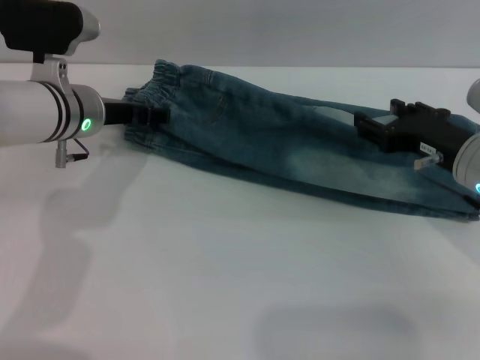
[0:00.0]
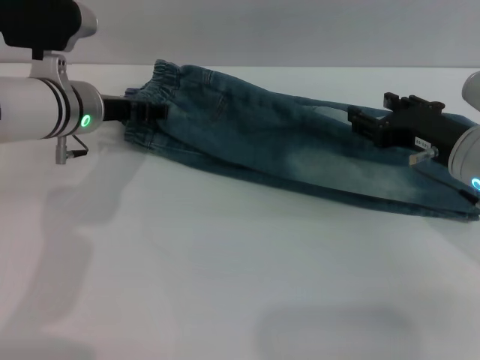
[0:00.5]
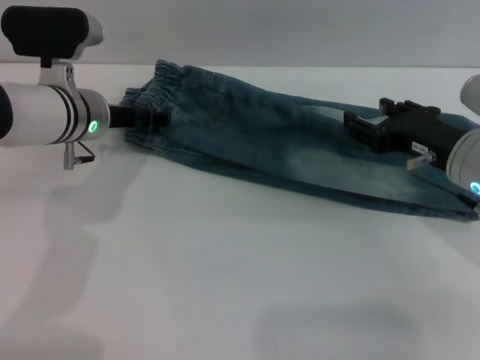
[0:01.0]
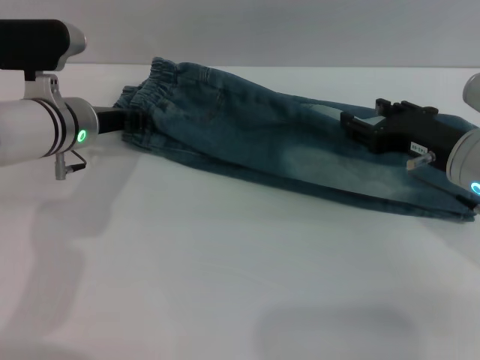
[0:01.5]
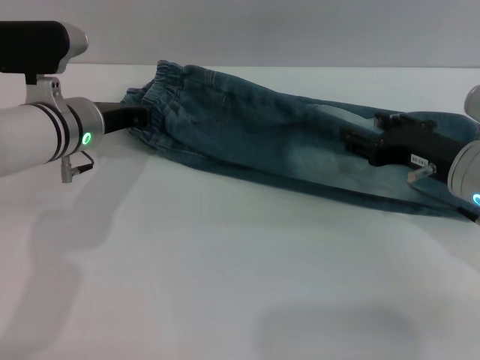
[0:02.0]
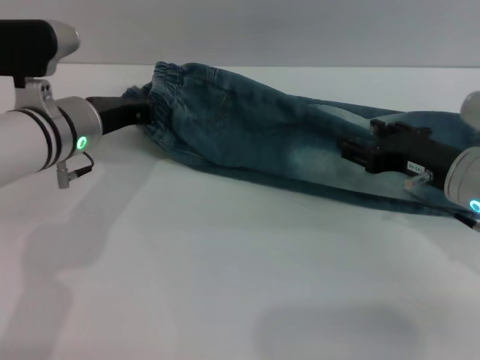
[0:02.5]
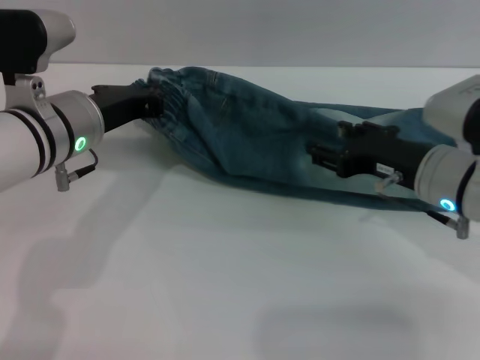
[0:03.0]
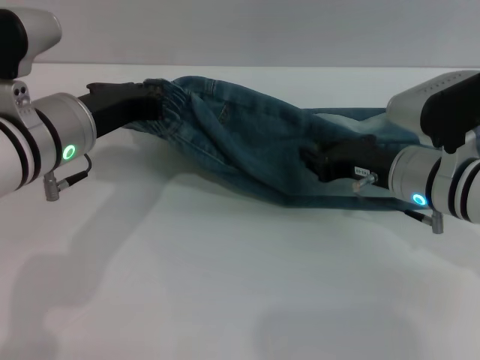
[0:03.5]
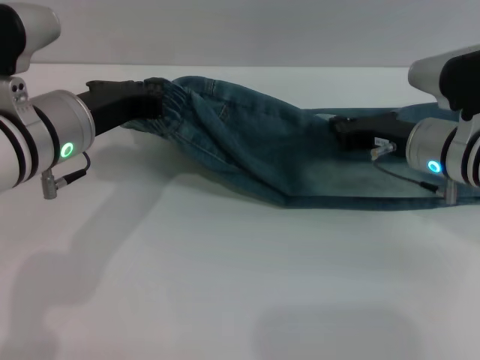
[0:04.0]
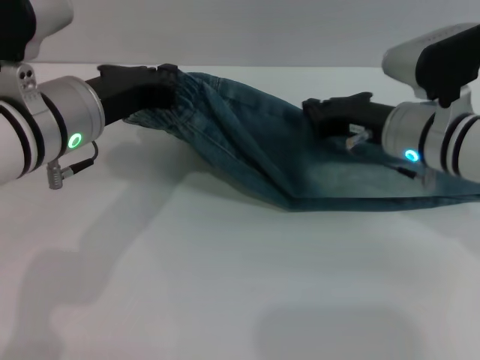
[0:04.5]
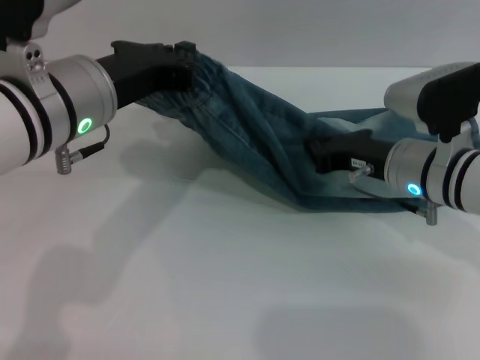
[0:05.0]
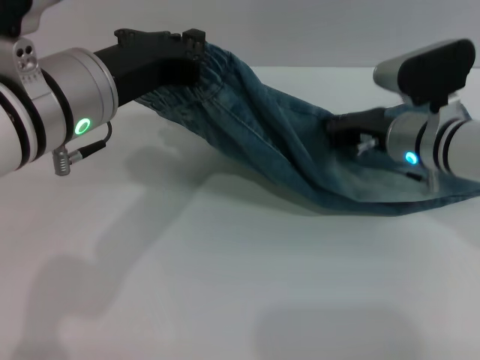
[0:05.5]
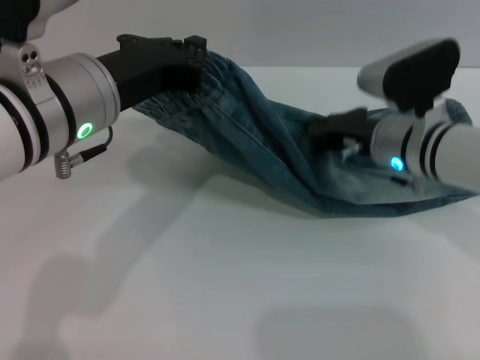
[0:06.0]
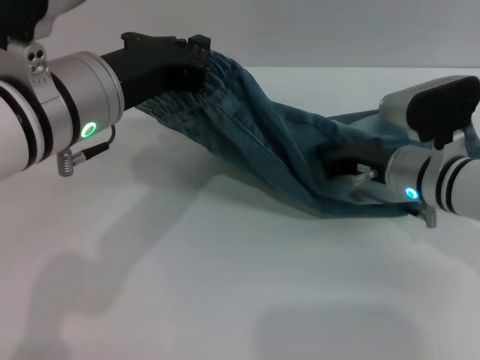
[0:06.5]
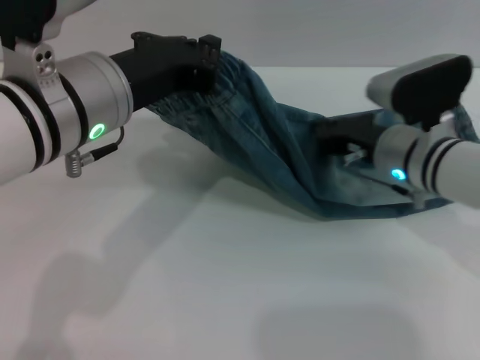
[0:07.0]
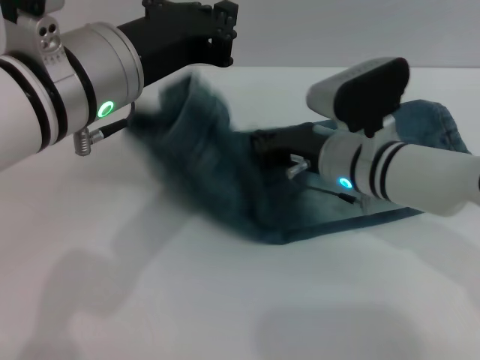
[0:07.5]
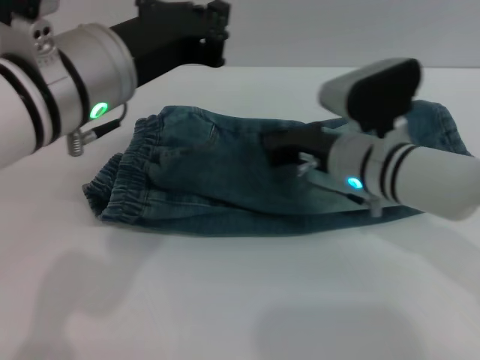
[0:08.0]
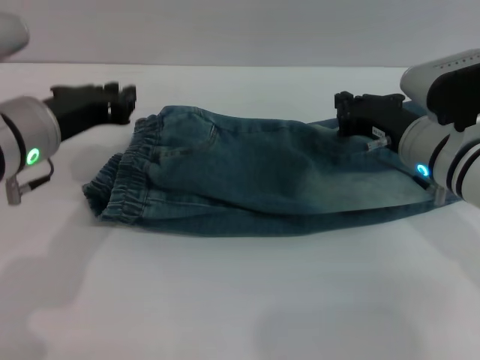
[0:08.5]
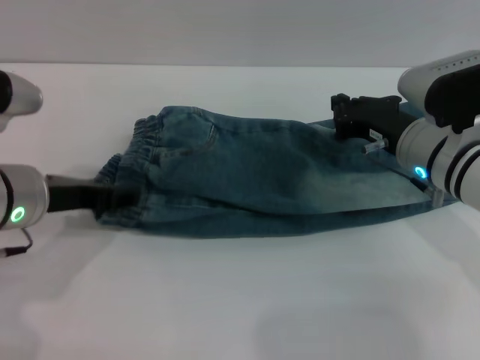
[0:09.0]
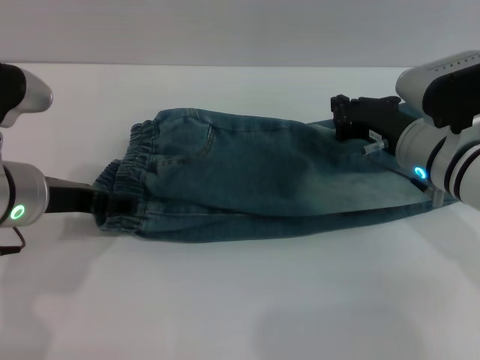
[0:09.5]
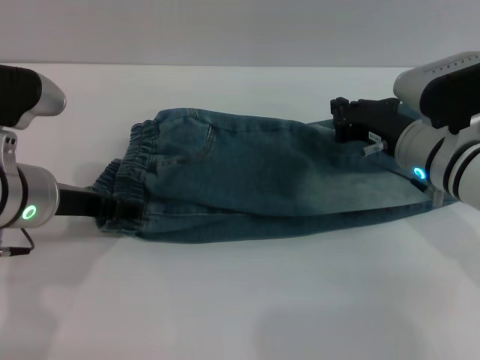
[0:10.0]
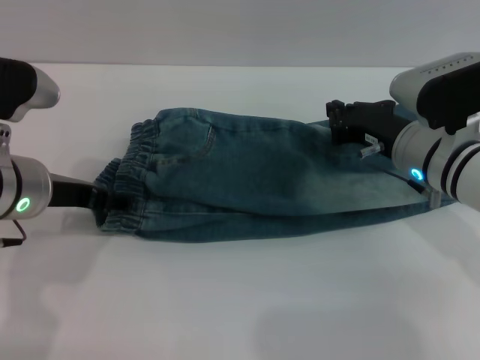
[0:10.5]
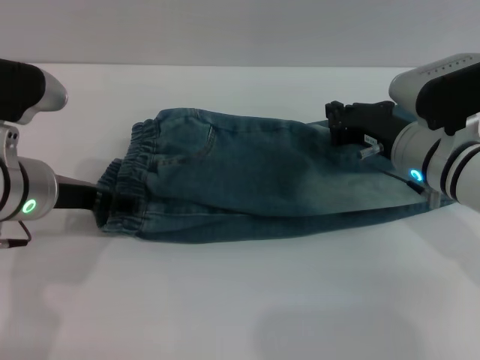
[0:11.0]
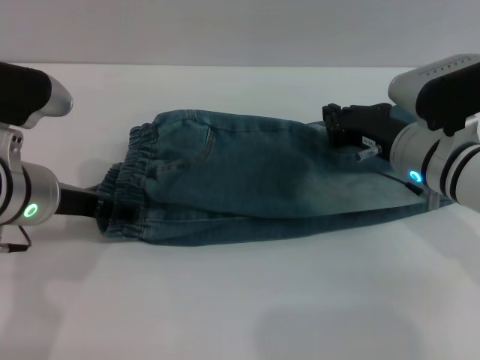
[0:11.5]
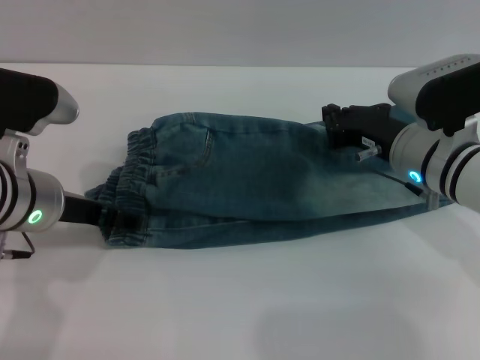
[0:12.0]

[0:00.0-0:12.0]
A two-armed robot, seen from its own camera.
0:00.0 to 0:02.0: The left gripper closes.
0:02.0 to 0:04.0: The left gripper moves backward and upward, approximately 10 cm, while the right gripper shifts about 5 cm forward, and closes up.
0:04.0 to 0:06.0: The left gripper ends up roughly 5 cm from where it was.
0:08.0 to 0:10.0: The left gripper travels downward and to the left by about 10 cm, and opens; the right gripper travels to the right by about 5 cm.
0:10.0 to 0:12.0: Both grippers stay put.

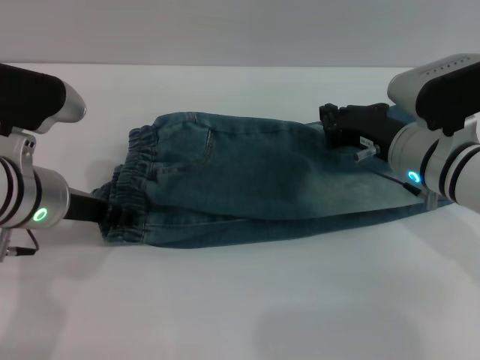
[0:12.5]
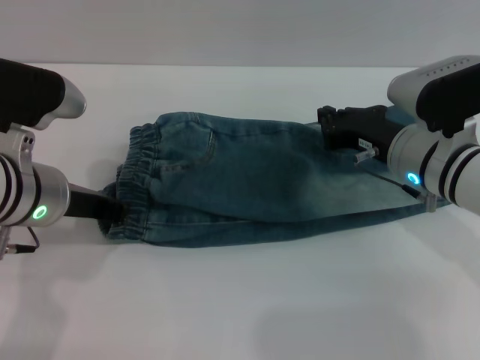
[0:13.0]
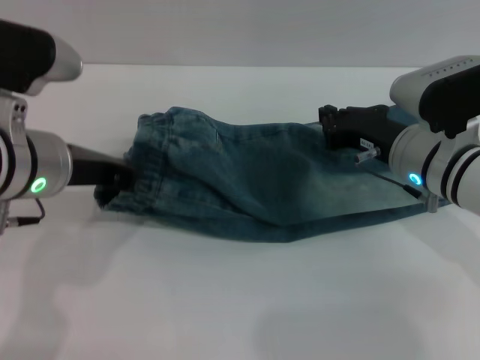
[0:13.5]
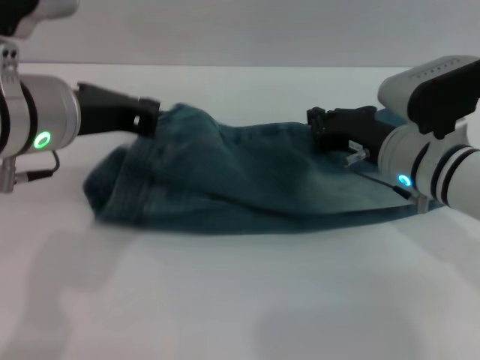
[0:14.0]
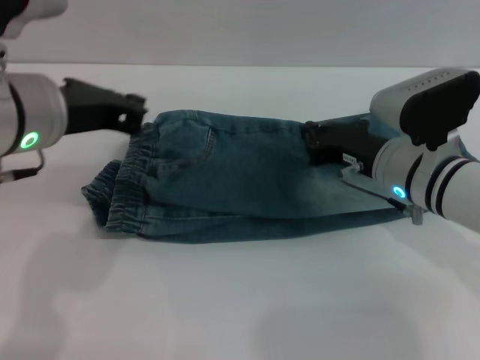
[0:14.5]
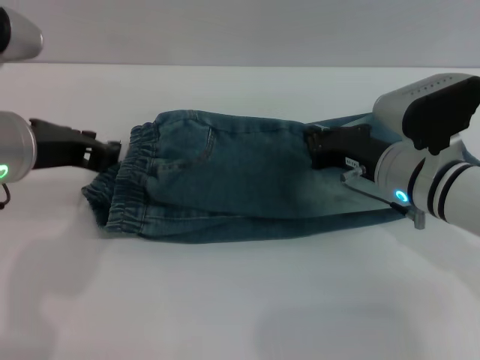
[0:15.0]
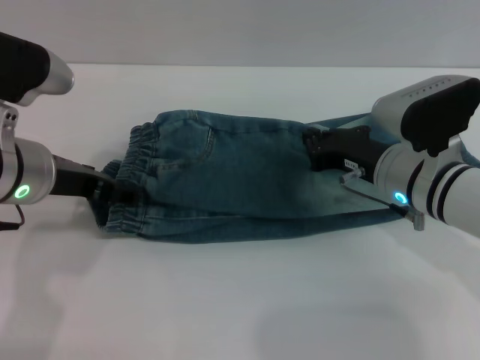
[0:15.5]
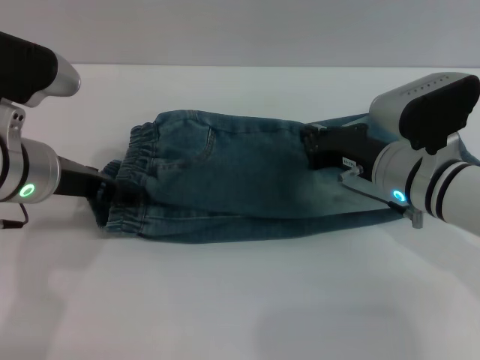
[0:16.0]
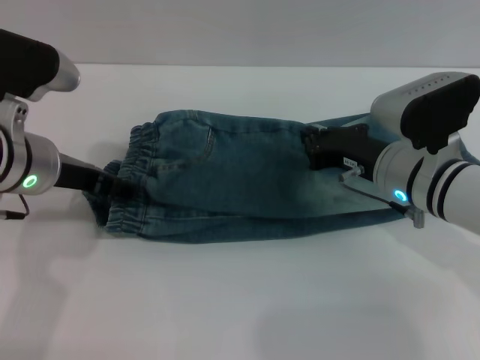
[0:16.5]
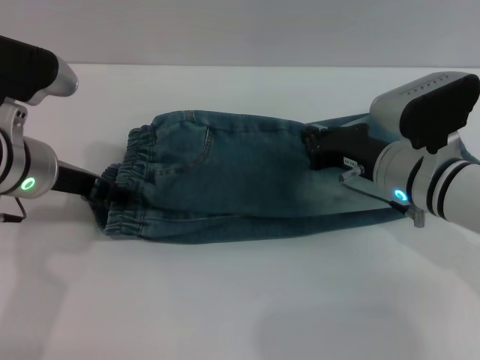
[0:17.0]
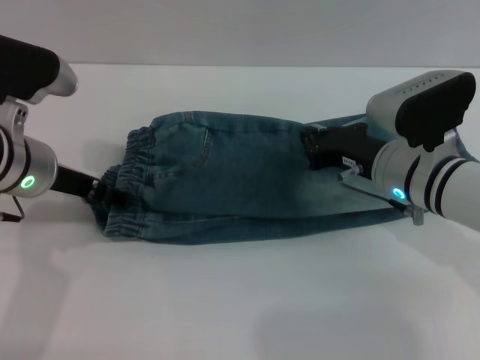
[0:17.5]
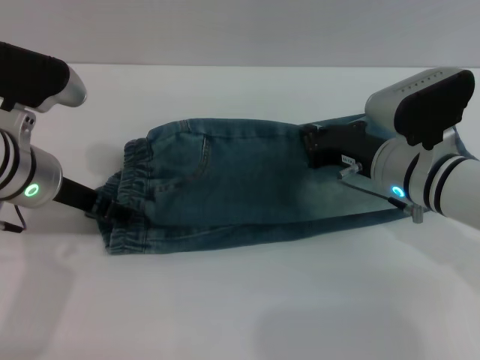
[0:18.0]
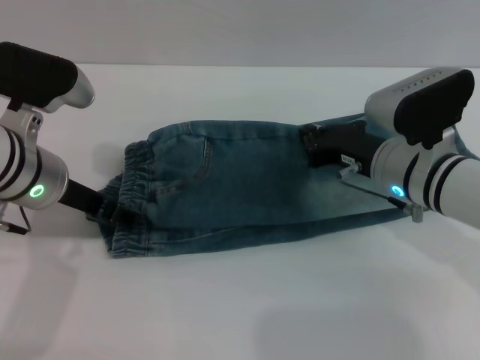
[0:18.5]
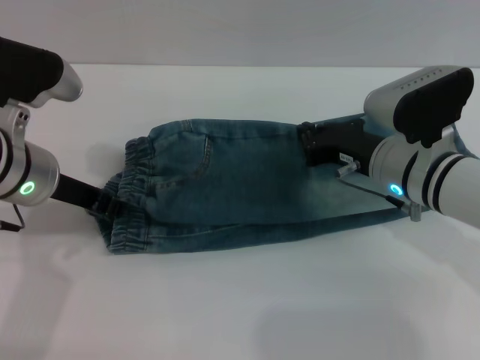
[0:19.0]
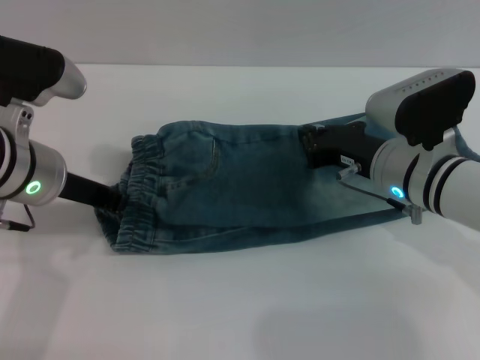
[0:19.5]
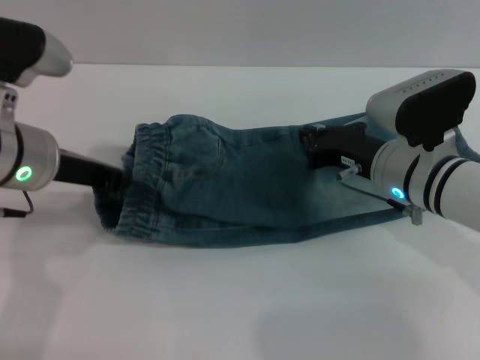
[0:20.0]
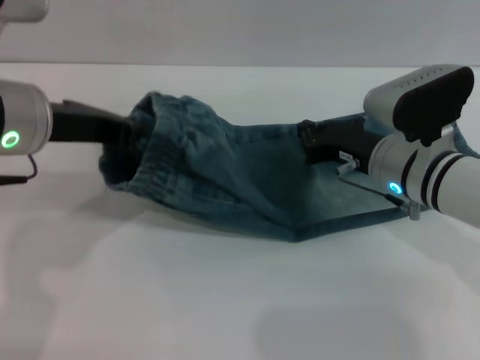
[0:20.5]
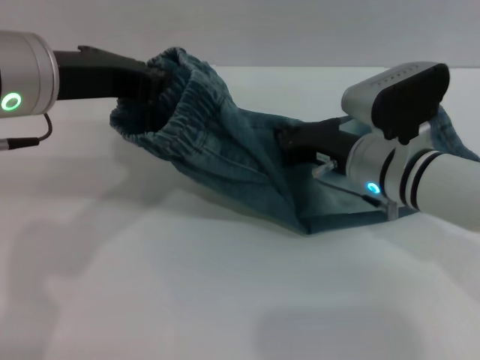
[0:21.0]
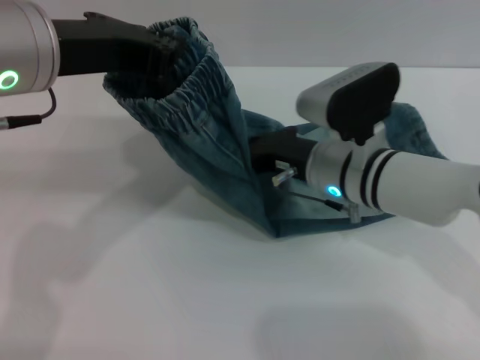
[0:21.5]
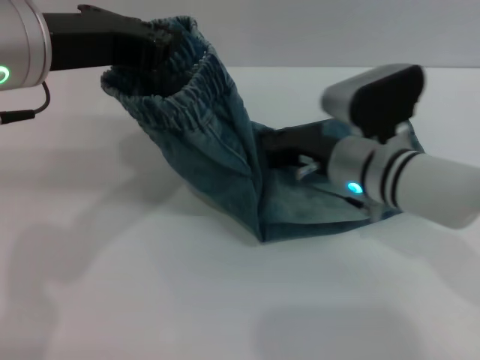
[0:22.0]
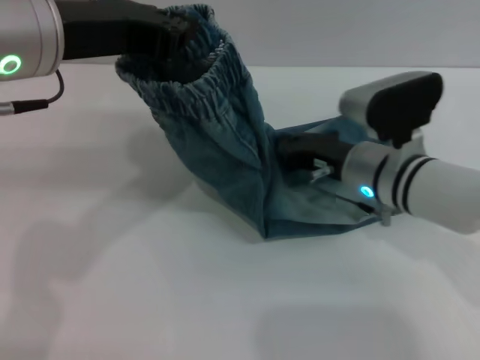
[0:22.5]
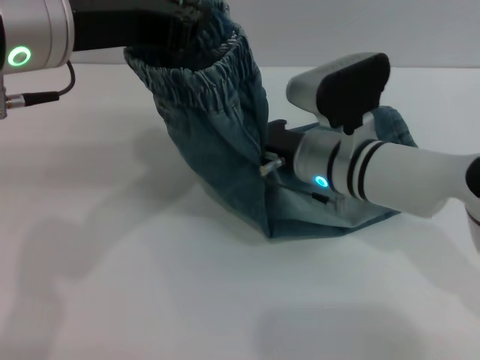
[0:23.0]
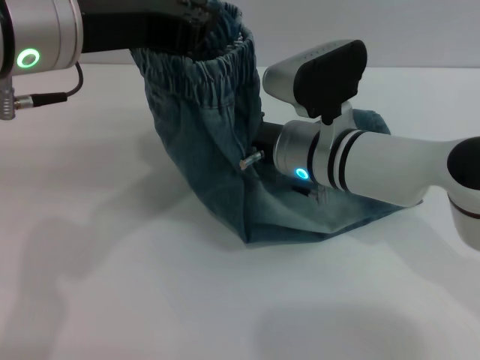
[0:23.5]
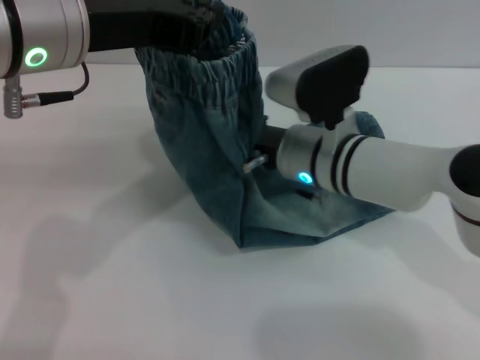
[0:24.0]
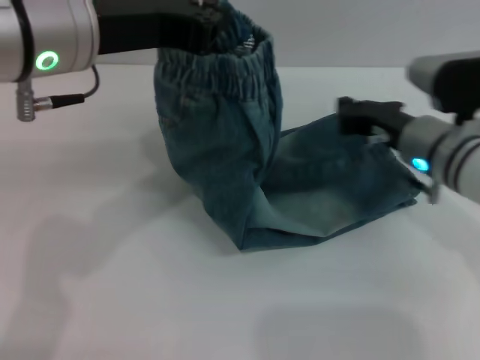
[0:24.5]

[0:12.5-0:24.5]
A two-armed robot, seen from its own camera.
0:12.5 to 0:14.5: The left gripper shifts approximately 10 cm upward, and closes its fingers.
0:14.5 to 0:16.5: The left gripper heads downward, covering about 5 cm, and opens.
0:16.5 to 0:18.5: There are only small adjustments of the grippers.
0:18.5 to 0:20.5: The left gripper shifts approximately 5 cm upward, and closes up.
0:20.5 to 0:22.5: The left gripper goes some 5 cm upward.
0:22.5 to 0:24.5: The right gripper shifts by roughly 5 cm.

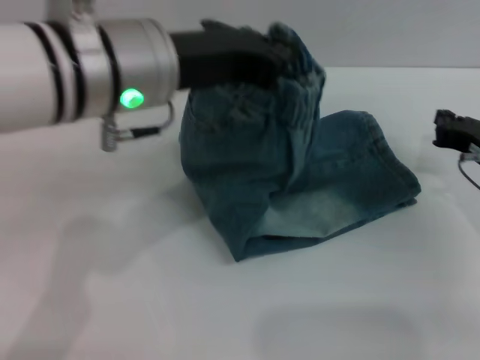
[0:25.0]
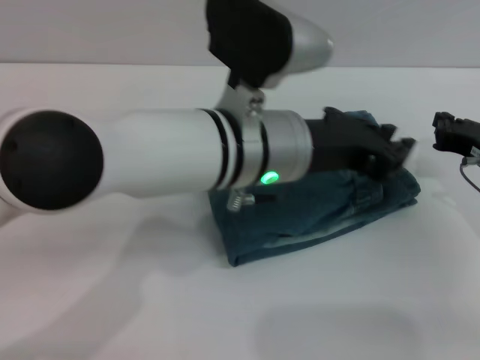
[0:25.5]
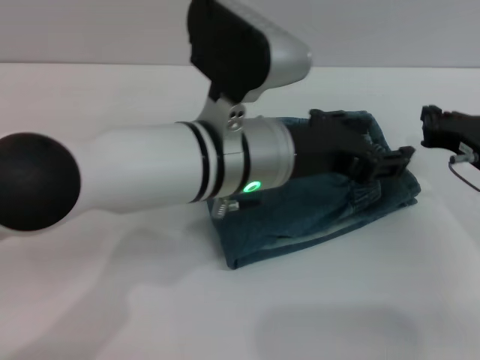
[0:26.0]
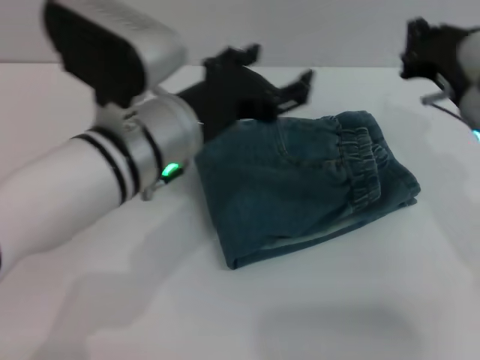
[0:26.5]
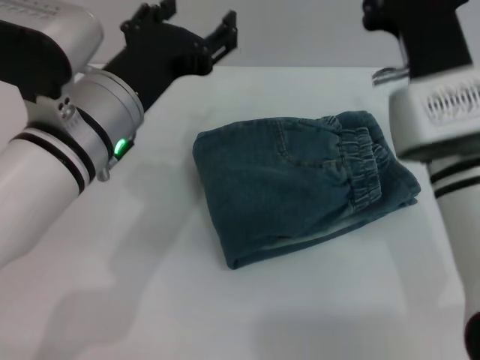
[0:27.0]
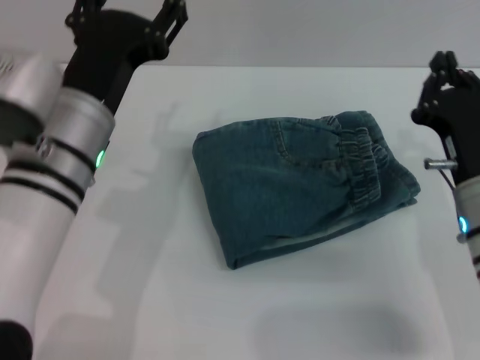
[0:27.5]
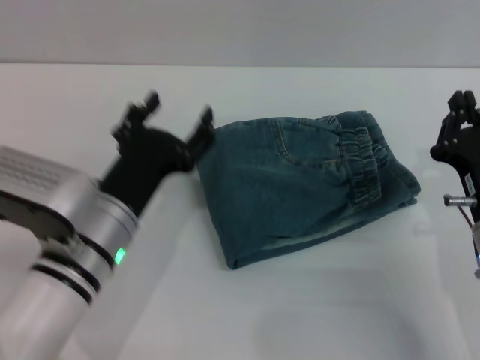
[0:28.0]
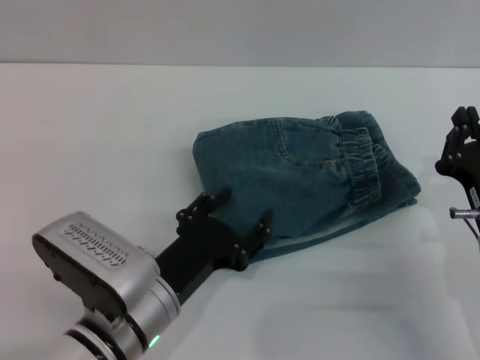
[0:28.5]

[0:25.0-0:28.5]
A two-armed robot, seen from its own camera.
0:25.0 to 0:27.0: The left gripper shifts roughly 5 cm downward, reaches about 10 cm to the right, then returns, and opens its fingers. The right gripper shifts roughly 15 cm to the left and upward.
0:27.0 to 0:28.5: The right gripper is displaced downward, to the right and backward by about 15 cm, while the left gripper travels downward and backward by about 15 cm.
